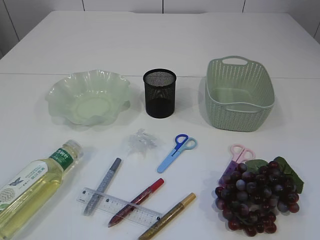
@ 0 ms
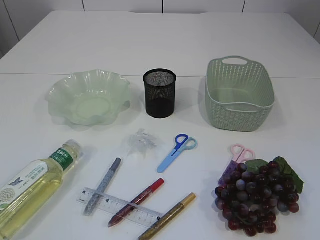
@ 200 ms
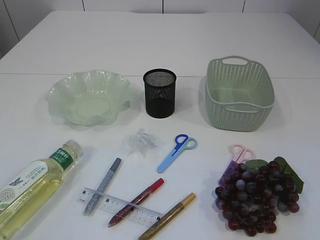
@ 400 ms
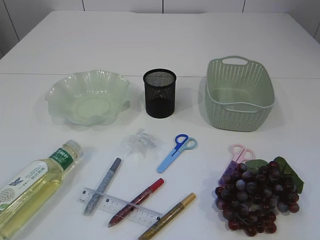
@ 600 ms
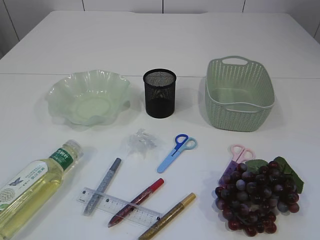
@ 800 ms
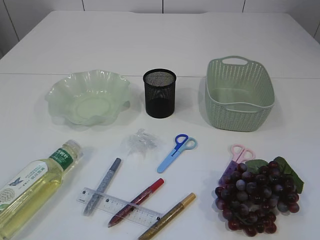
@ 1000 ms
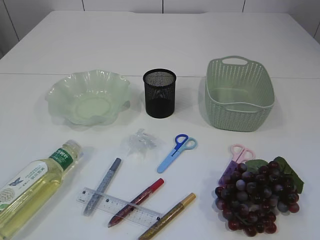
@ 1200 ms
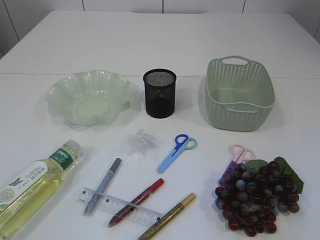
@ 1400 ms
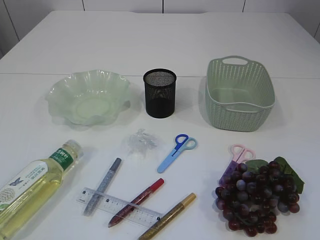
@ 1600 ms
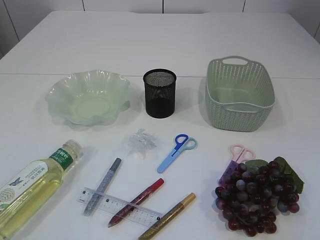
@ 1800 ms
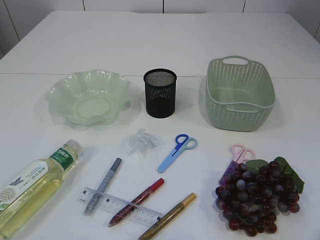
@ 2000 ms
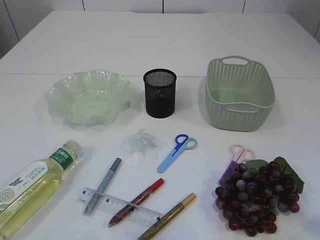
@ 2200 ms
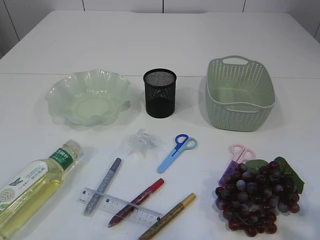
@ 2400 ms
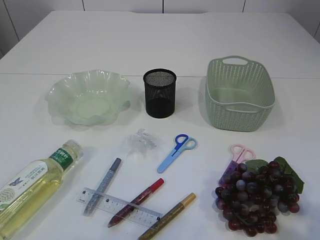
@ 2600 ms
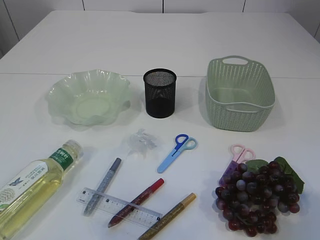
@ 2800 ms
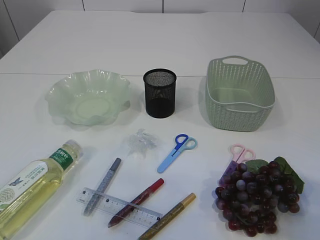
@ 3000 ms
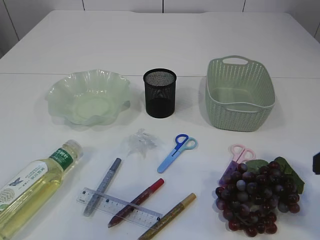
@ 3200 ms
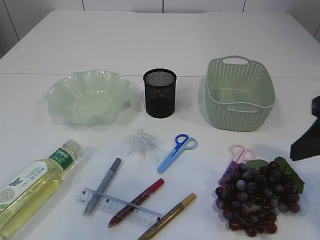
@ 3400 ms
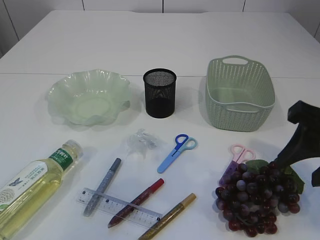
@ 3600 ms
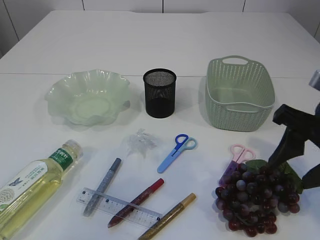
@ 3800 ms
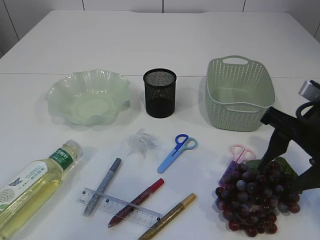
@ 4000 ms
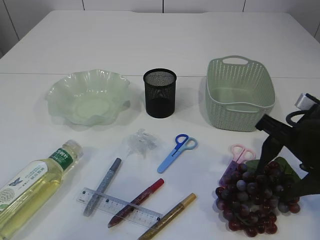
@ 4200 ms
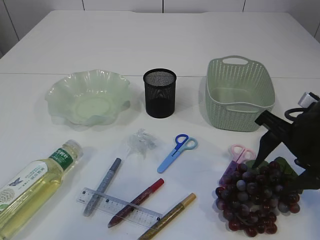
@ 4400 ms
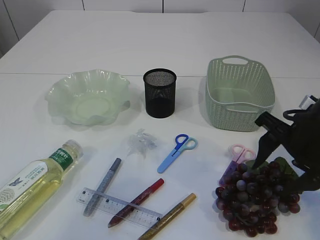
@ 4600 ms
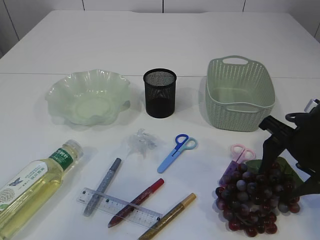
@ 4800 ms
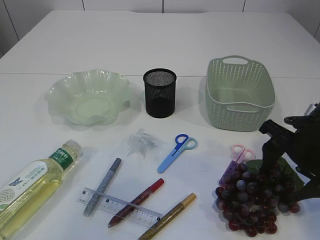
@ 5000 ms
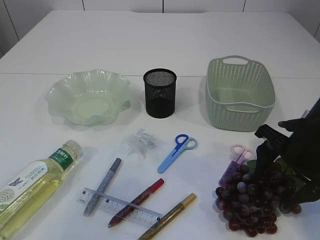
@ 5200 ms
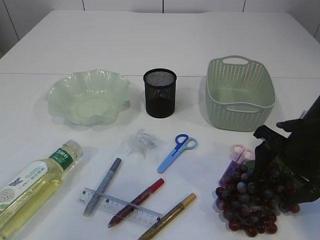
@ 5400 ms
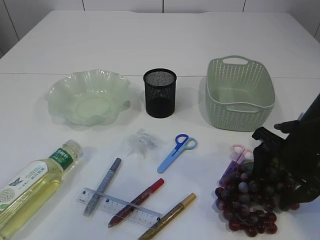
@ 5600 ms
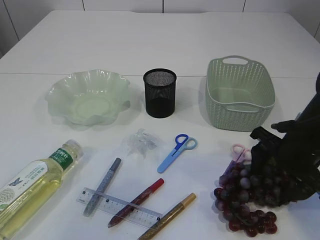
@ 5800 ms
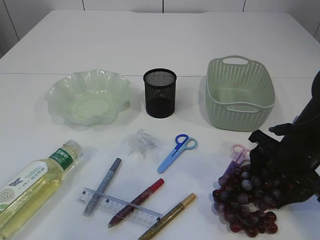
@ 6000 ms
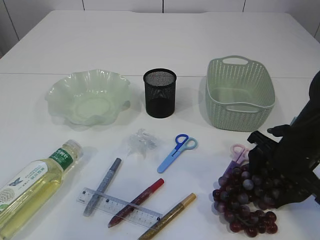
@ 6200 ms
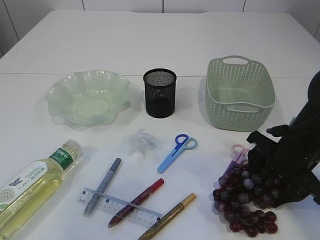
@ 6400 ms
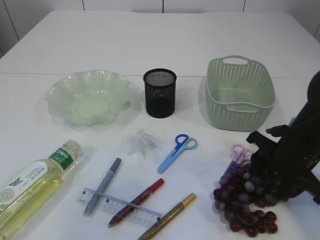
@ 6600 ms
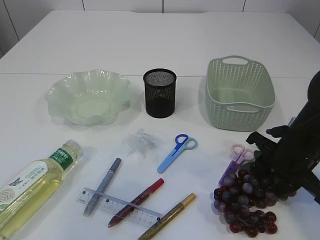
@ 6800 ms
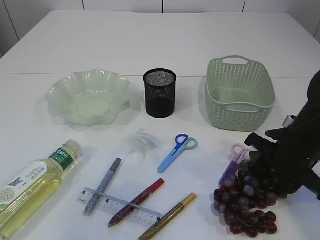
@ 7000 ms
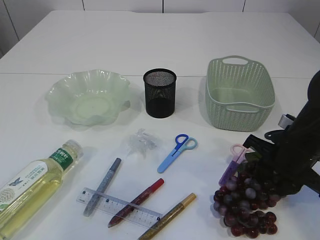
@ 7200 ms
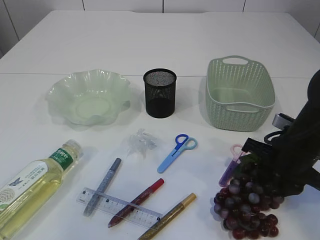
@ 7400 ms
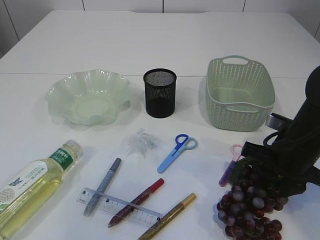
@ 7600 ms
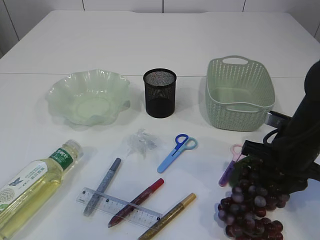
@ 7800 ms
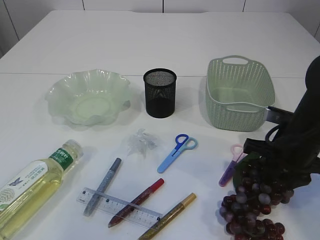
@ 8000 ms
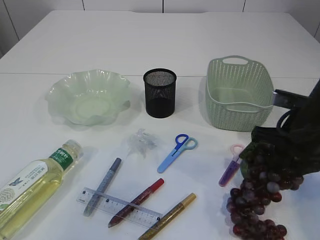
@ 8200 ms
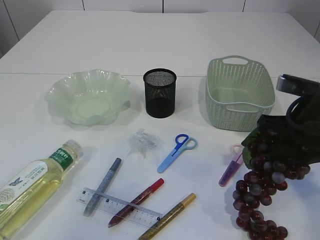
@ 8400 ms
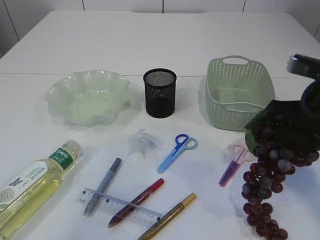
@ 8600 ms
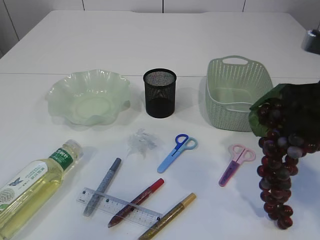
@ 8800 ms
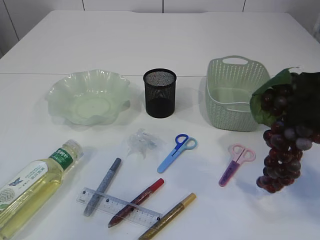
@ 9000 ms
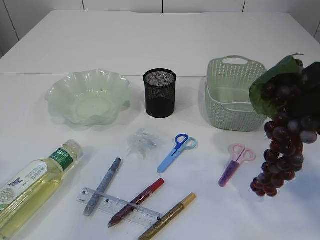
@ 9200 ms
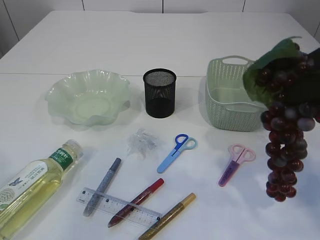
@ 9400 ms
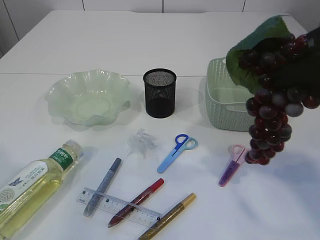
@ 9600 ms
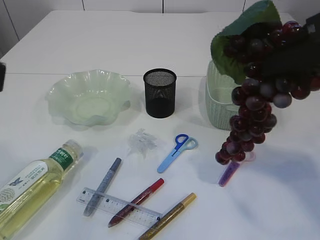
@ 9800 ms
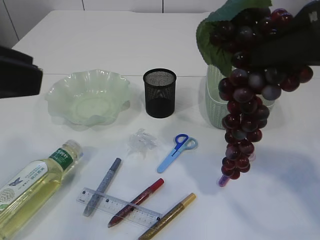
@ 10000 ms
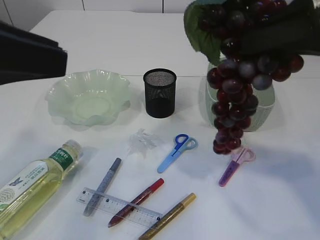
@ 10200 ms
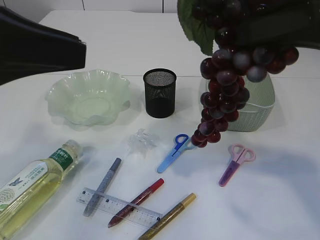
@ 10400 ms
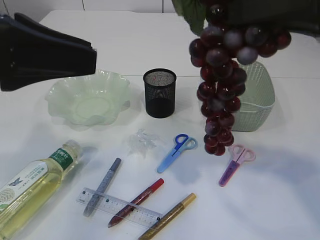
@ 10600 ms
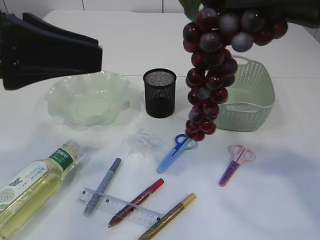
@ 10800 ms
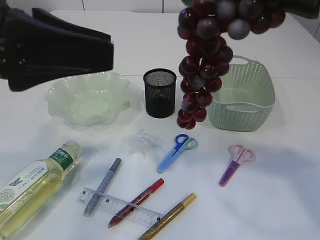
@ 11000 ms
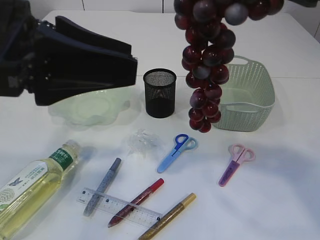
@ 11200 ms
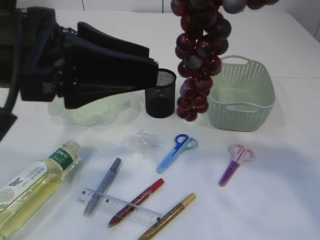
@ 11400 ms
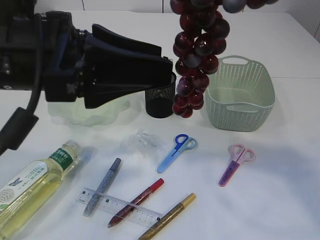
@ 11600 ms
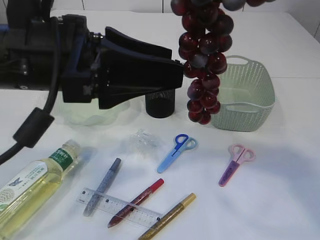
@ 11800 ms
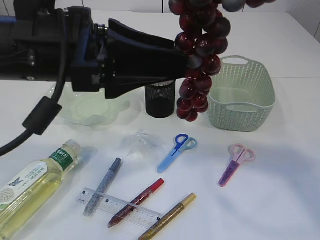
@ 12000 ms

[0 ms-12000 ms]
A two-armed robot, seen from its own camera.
Step, 0 ms to 10000 ms: Pick up the grapes.
1600 ms to 3000 ms: The right gripper moves forward, about 10 cm. The left gripper heads upward and forward, covering some 10 cm.
3000 ms to 4400 ms: The right gripper moves forward and downward, approximately 20 cm. Meanwhile the left gripper travels forward by roughly 5 cm.
4400 ms to 6000 ms: The right gripper shifts about 5 cm downward.
6000 ms to 7600 ms: The right gripper closes its fingers.
7600 ms to 9000 ms: The right gripper moves upward, some 15 cm.
9000 ms to 10400 ms: The left gripper travels forward and to the right by about 10 cm. The right gripper is displaced upward by roughly 10 cm.
10400 ms to 12000 ms: The left gripper goes approximately 10 cm to the right.

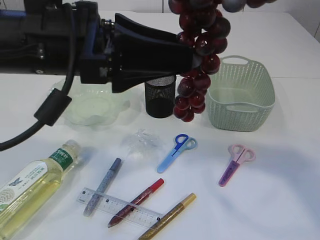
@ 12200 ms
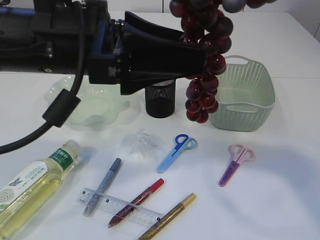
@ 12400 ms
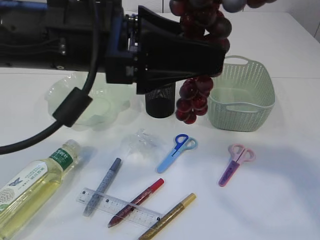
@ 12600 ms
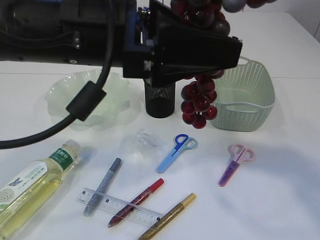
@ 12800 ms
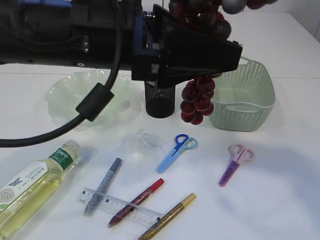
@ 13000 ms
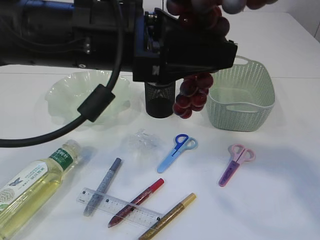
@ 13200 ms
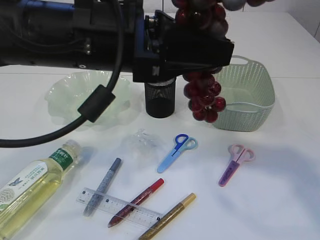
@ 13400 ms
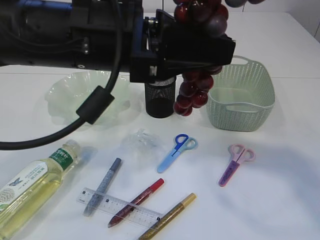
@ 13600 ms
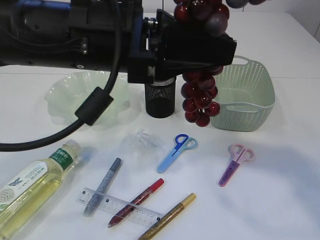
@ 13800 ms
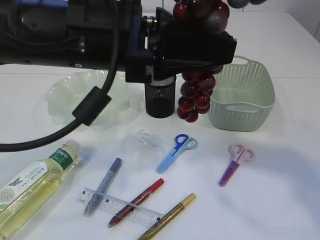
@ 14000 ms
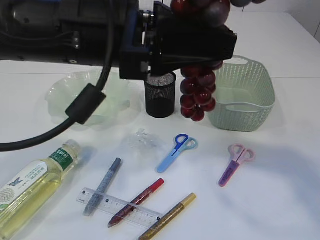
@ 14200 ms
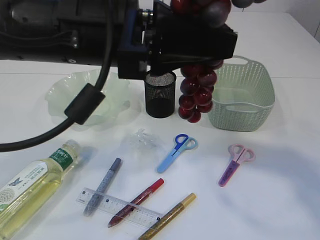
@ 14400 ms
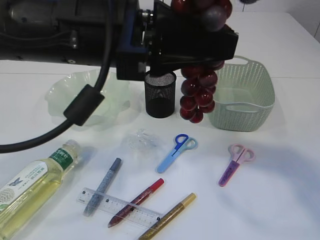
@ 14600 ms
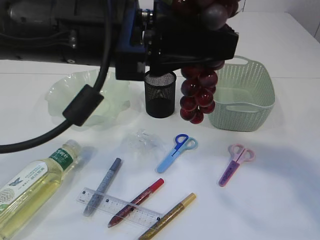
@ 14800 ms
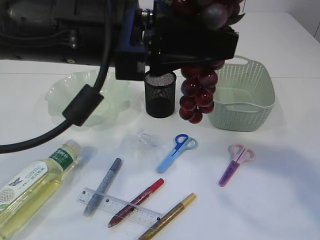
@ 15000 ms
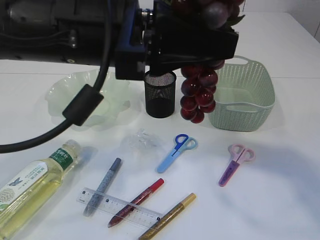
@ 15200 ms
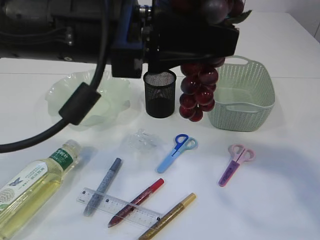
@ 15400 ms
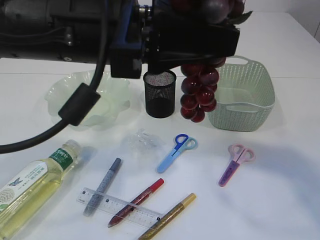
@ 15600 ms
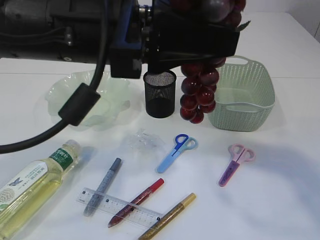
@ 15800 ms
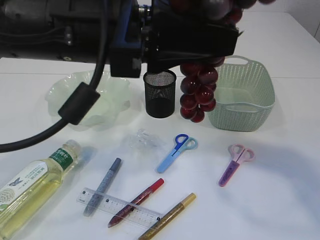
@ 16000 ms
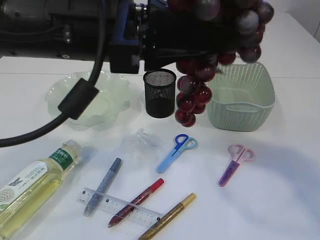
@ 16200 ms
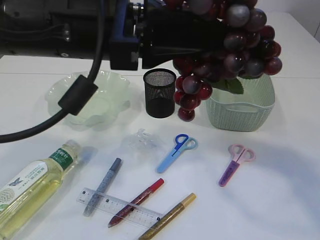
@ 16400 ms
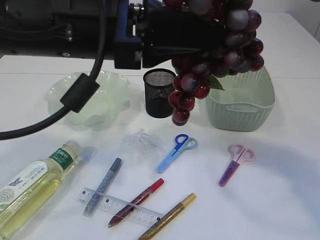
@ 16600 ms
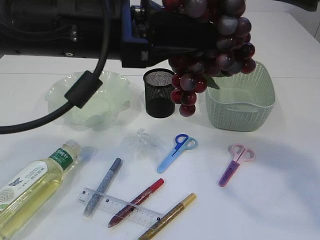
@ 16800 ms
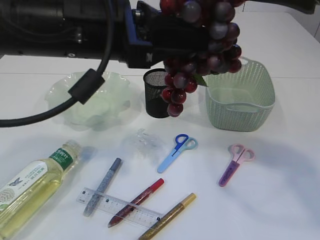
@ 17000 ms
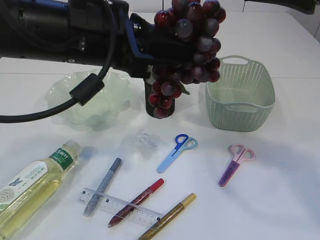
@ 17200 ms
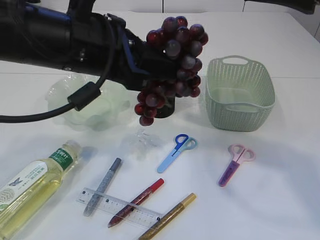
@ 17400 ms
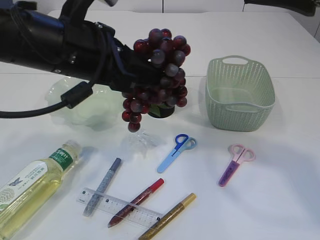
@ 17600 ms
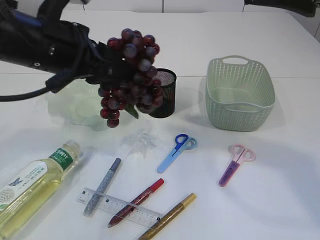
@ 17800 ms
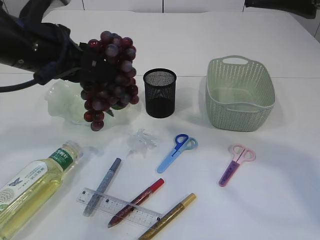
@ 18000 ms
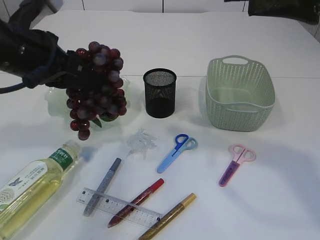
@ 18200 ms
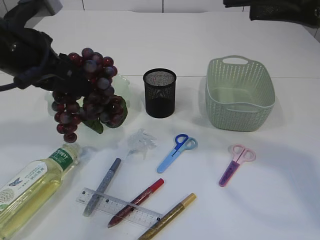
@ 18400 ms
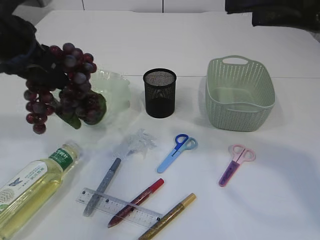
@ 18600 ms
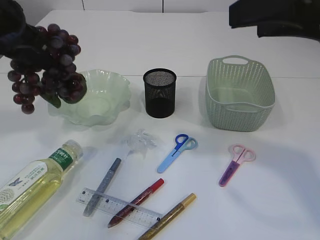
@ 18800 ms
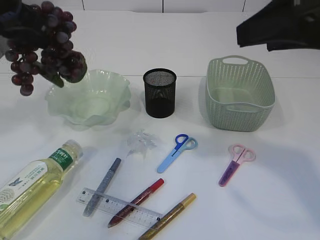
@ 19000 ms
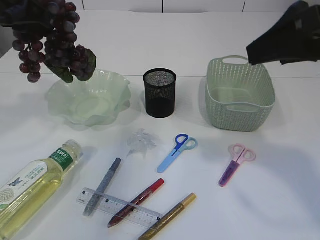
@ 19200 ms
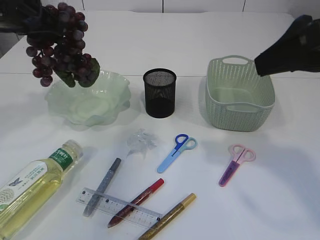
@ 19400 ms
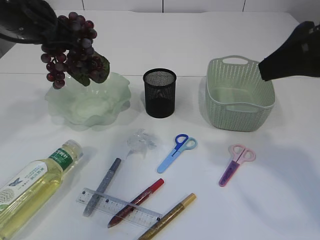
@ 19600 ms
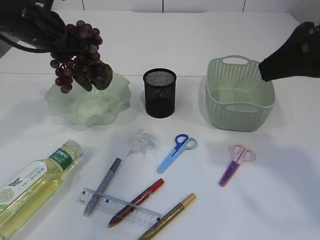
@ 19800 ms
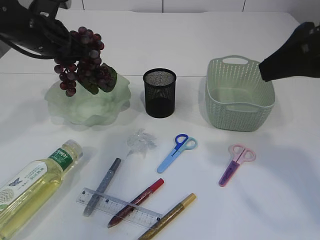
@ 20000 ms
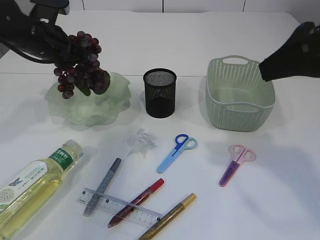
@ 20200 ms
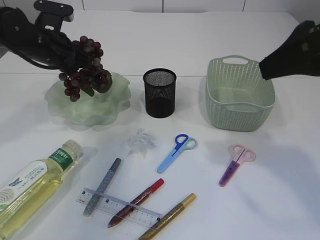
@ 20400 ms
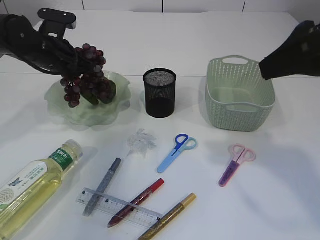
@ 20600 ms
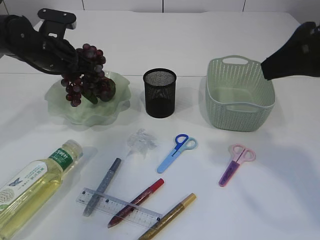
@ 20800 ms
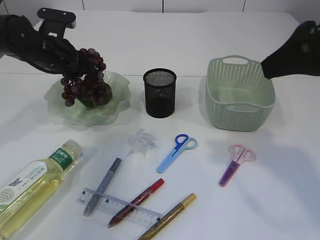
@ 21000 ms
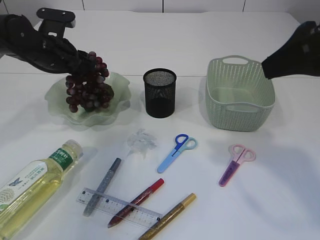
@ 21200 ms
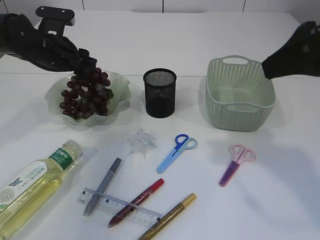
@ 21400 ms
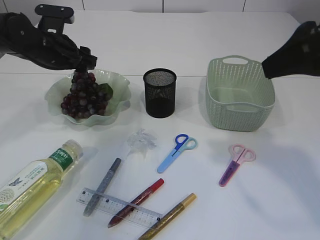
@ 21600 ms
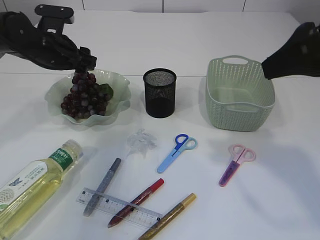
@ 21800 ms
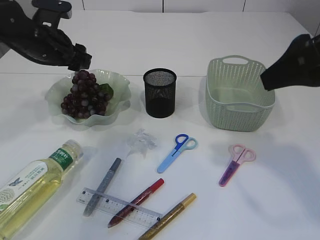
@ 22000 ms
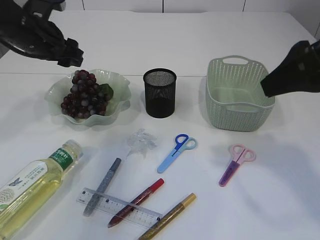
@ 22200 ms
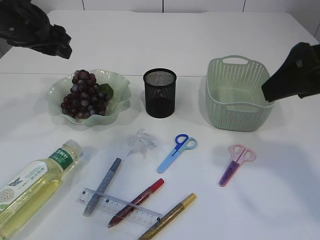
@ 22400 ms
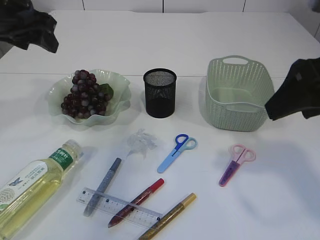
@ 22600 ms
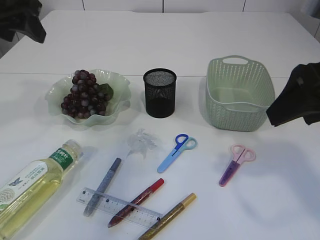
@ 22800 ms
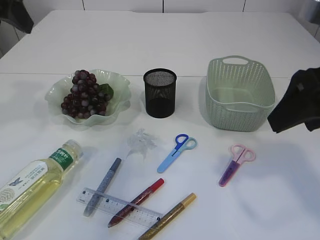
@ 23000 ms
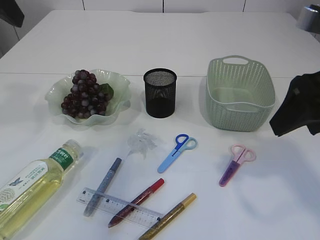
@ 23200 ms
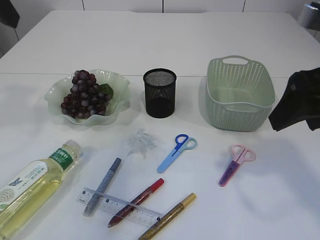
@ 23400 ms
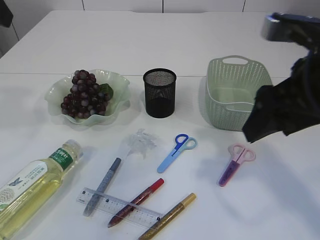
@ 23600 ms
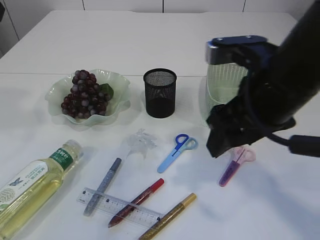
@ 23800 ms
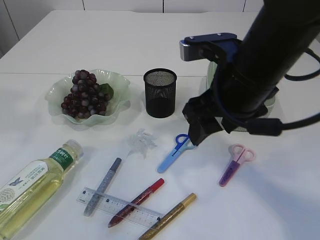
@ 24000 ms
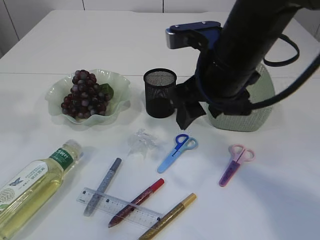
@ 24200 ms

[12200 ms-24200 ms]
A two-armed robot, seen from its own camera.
Step, 12200 ms to 17200 ms: Hand over the grapes.
Step, 17400 ms to 22200 ms: Place the grapes in the plate.
12200 ms to 13800 ms: The left gripper closes.
13800 ms to 15200 ms: The right gripper opens its fingers.
15200 ms to 16600 ms: The grippers stay close to where they were, moving slightly.
16600 ms to 18200 ms: The left gripper goes roughly 15 cm to the left and forward.
18200 ms to 19800 ms: The left gripper goes approximately 10 cm forward.
19800 ms to 21200 ms: The left gripper moves downward, about 5 cm, and opens its fingers.
21200 ms to 22600 ms: The left gripper heads upward and backward, covering roughly 15 cm.
22600 ms to 24200 ms: The left gripper is displaced backward and upward by about 15 cm, while the right gripper is displaced to the left and forward by some 15 cm.
